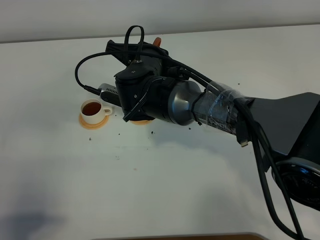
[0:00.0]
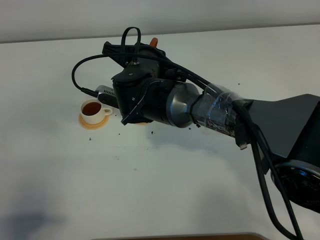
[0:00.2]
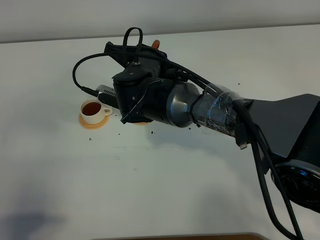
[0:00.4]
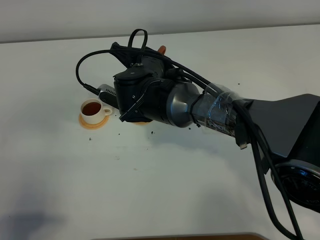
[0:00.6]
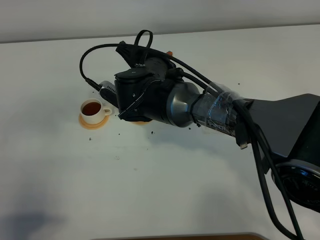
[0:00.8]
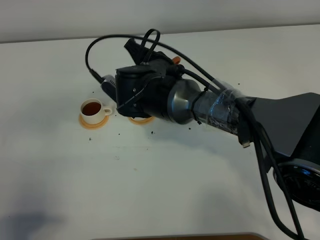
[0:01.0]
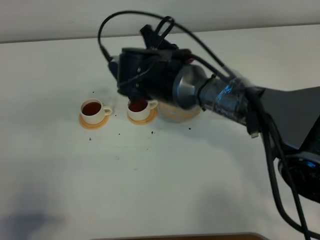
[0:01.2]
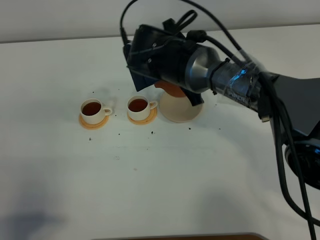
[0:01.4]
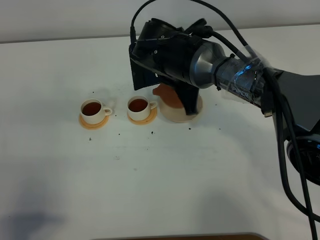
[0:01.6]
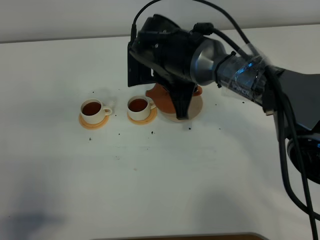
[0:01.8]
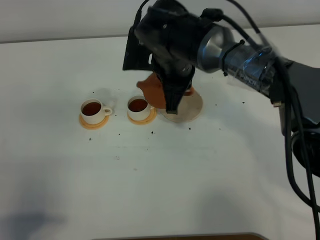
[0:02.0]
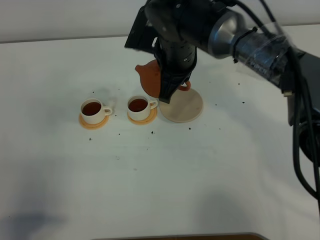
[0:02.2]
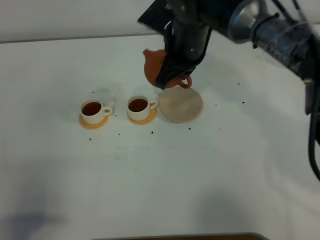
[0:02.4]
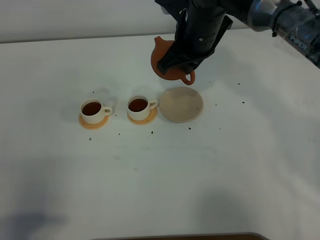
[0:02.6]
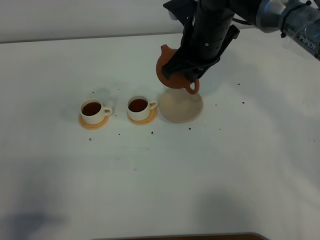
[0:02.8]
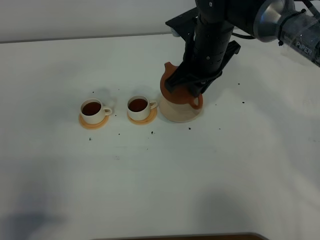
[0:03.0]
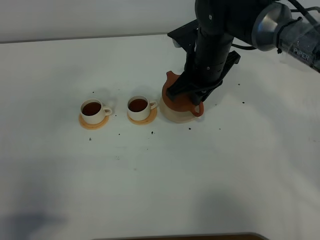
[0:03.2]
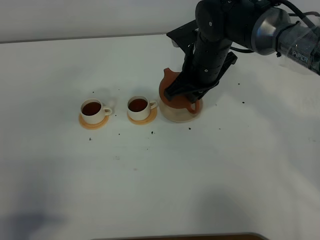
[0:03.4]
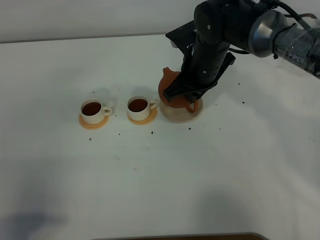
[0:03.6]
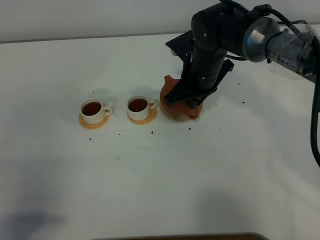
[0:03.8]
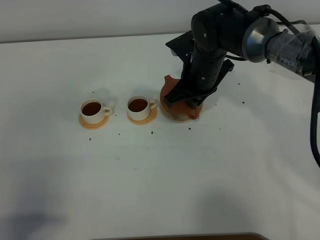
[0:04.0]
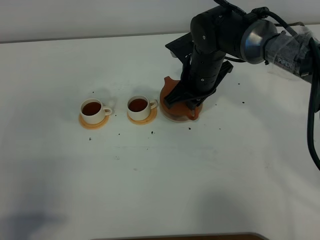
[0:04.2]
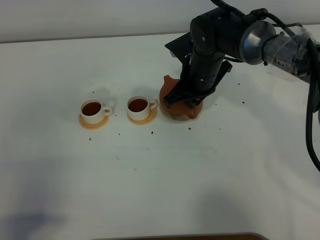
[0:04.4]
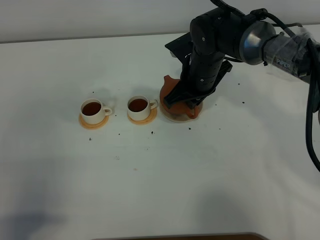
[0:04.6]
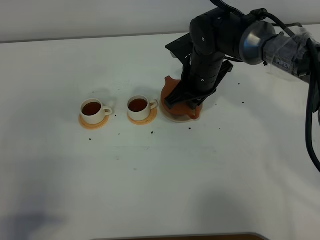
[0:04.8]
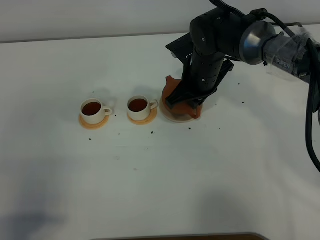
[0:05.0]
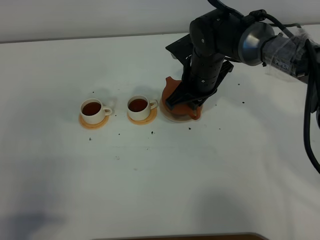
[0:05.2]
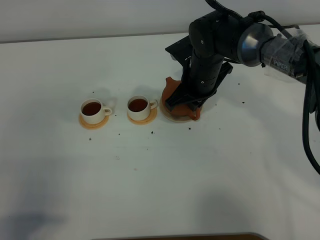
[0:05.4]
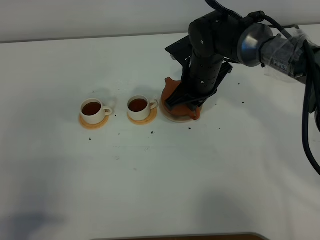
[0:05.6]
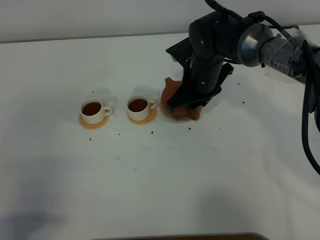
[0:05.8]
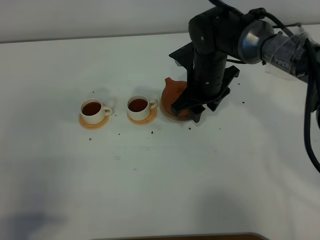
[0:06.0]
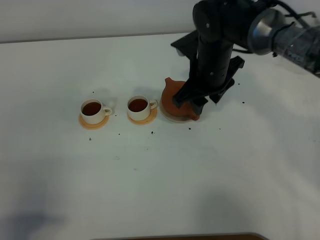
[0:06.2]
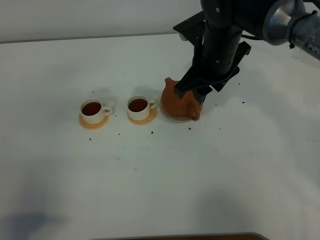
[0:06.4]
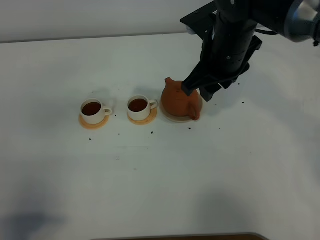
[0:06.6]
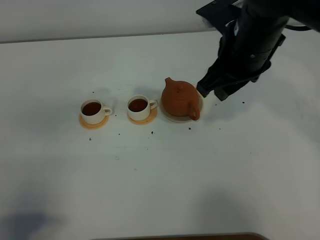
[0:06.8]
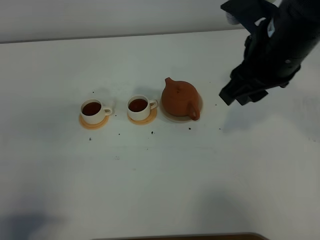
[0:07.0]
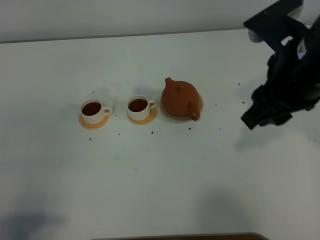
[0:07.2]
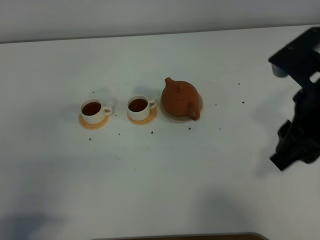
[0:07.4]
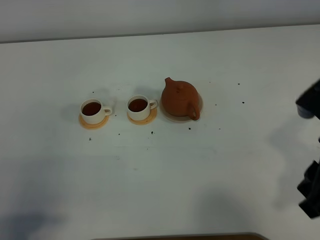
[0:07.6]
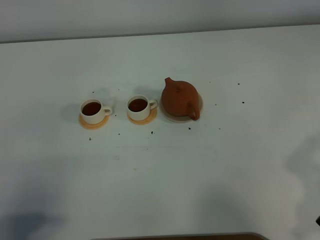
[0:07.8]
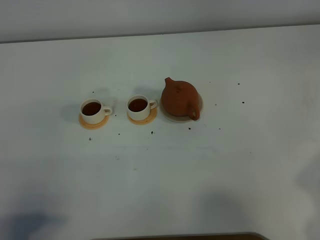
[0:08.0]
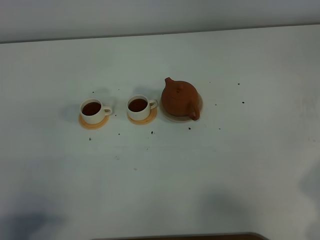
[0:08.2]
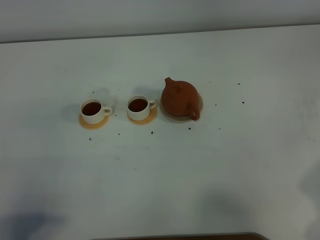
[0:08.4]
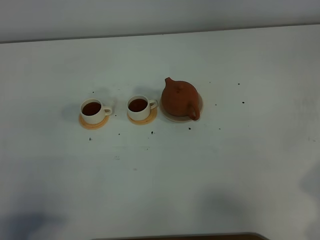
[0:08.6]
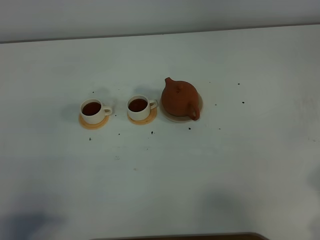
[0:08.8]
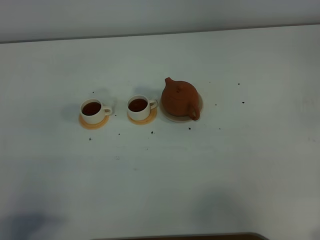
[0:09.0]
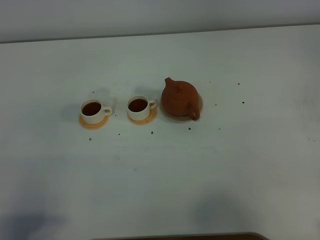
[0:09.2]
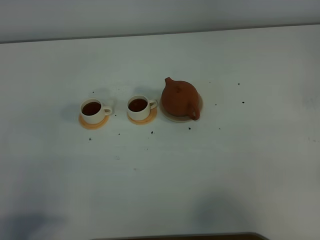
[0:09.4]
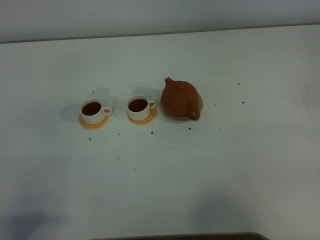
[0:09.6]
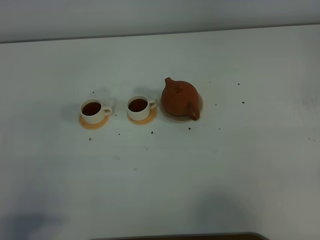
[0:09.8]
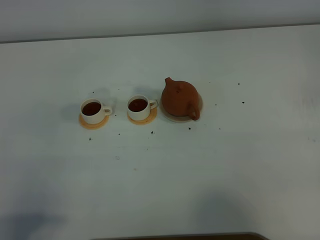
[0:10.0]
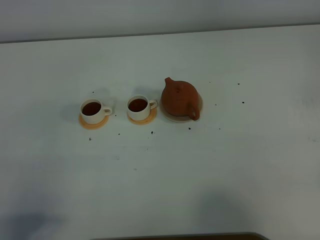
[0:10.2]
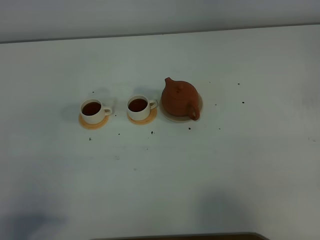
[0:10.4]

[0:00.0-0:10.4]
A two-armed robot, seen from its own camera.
Task of the whole recording: grasp the brown teapot and pour the tea into the two white teacups one by one, put the brown teapot back in its original place.
Step, 0:00.0 to 0:03.0: Pour tea into the teacup with the right gripper.
0:00.0 to 0:01.4: The right gripper moves roughly 5 cm.
0:01.4 to 0:03.0: The right gripper is displaced to the right by some 5 cm.
0:03.0 to 0:04.4: The right gripper moves downward, about 5 cm.
0:04.4 to 0:06.0: The right gripper opens.
0:06.0 to 0:07.4: The right gripper is displaced to the right, backward and upward by some 25 cm.
0:07.4 to 0:09.0: The right gripper goes approximately 15 cm to the right, backward and downward.

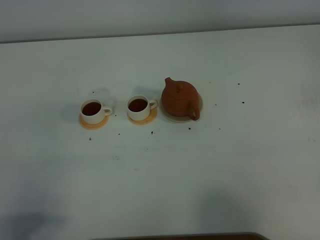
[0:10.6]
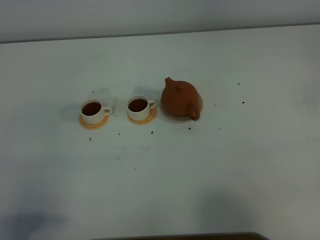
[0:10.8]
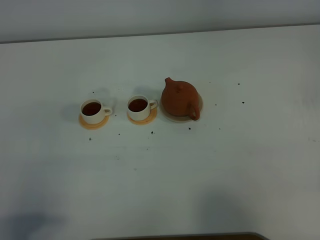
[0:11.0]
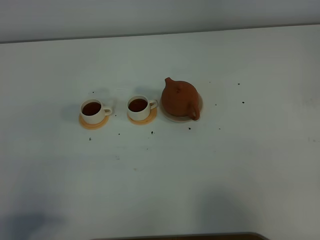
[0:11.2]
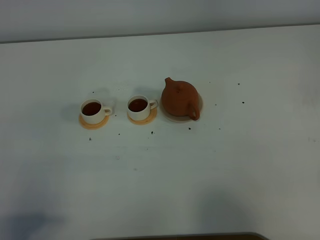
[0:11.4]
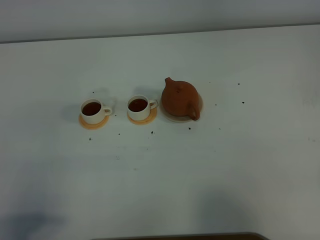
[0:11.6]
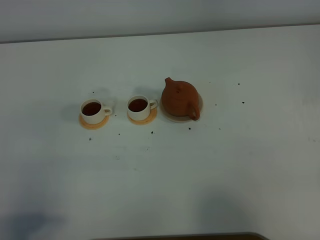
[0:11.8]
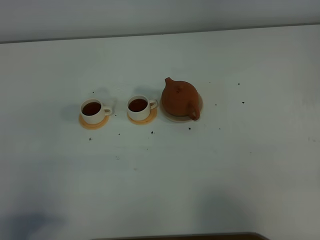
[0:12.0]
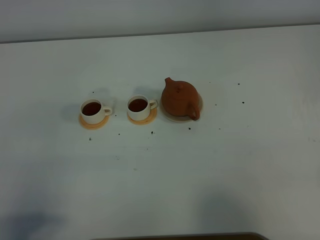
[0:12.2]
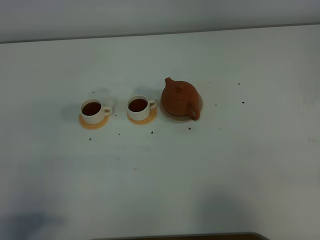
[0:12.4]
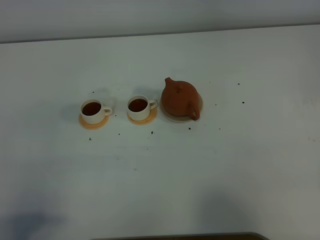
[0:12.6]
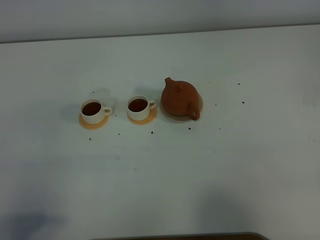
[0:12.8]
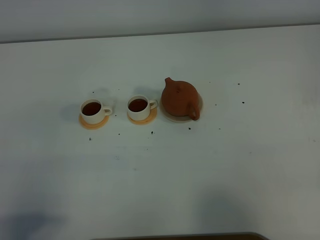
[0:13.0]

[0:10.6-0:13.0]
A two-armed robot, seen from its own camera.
Task of the whole recording: grasp the brown teapot and pour the tea into the two white teacups one by one, put the brown teapot back in its original place.
0:11.8 to 0:13.0: Both grippers stay about where they are.
